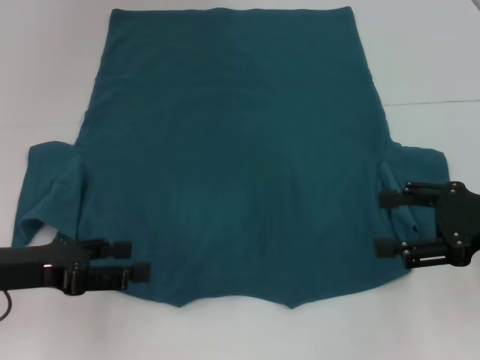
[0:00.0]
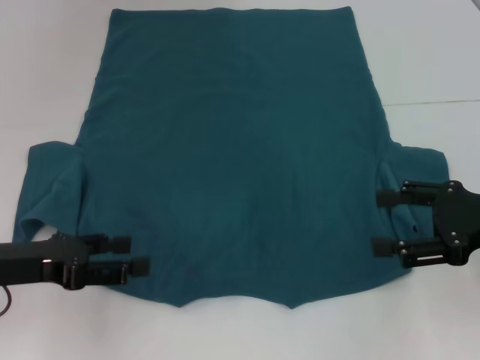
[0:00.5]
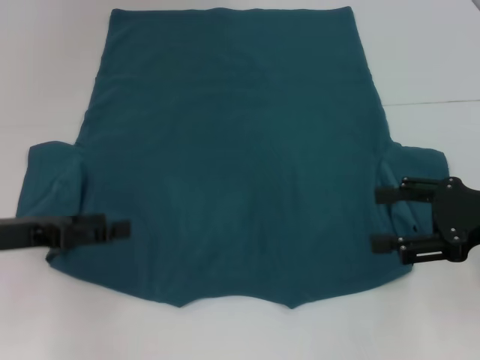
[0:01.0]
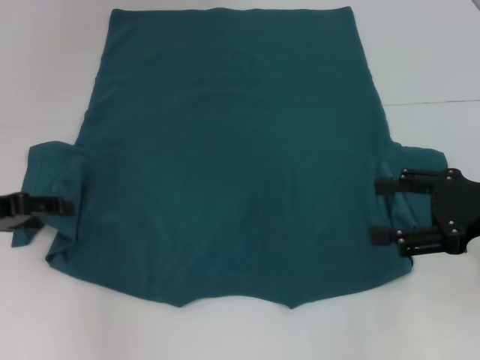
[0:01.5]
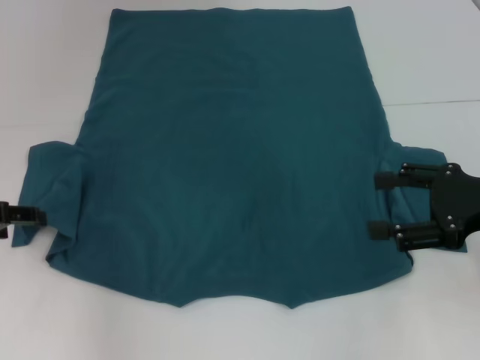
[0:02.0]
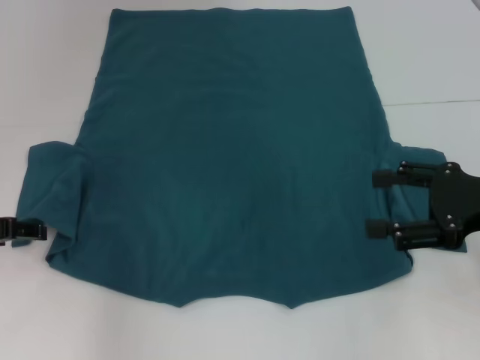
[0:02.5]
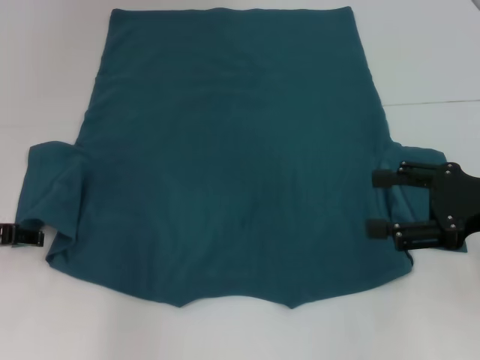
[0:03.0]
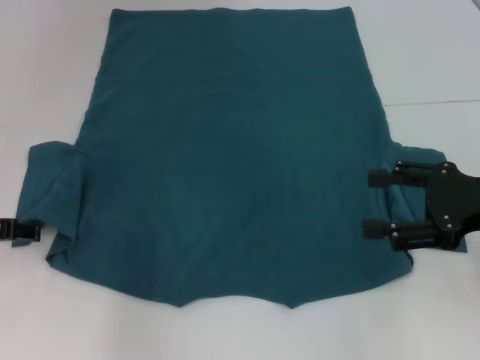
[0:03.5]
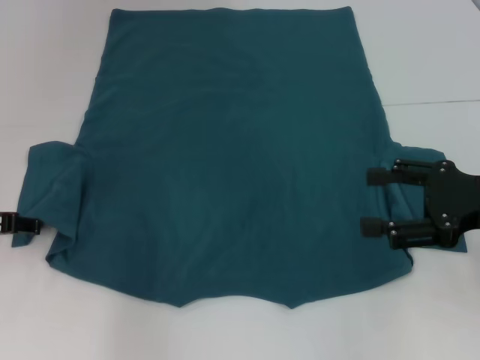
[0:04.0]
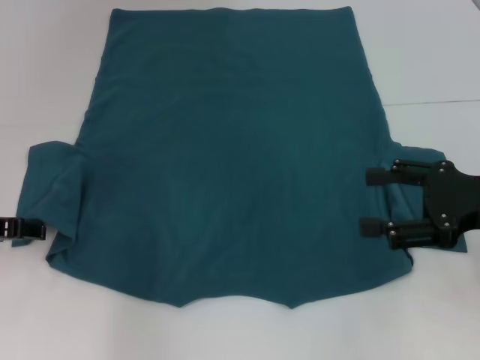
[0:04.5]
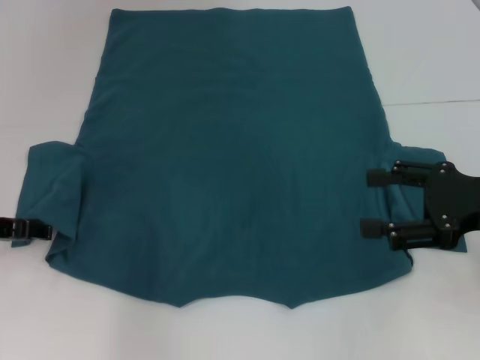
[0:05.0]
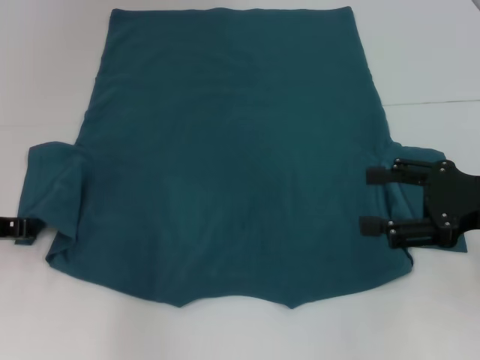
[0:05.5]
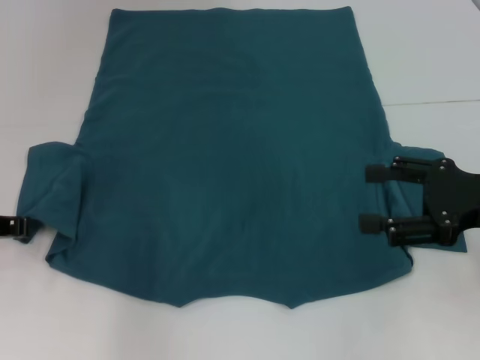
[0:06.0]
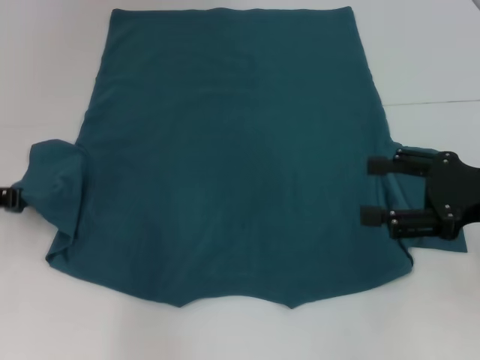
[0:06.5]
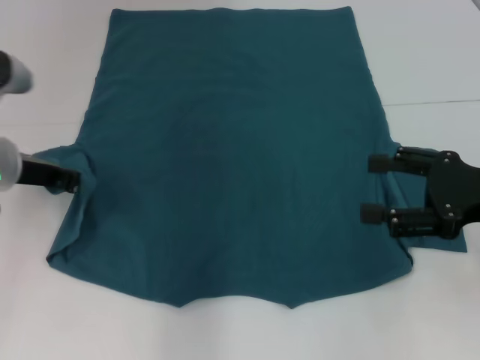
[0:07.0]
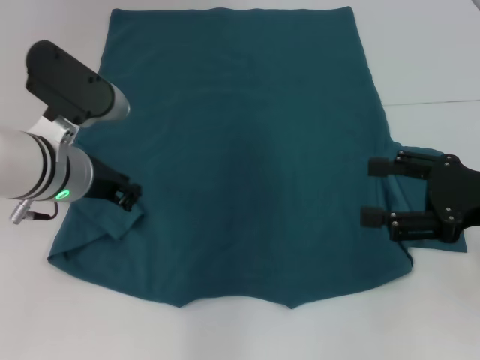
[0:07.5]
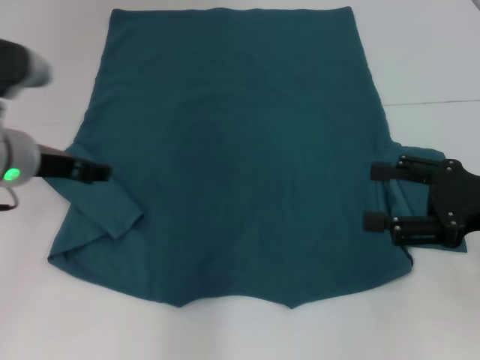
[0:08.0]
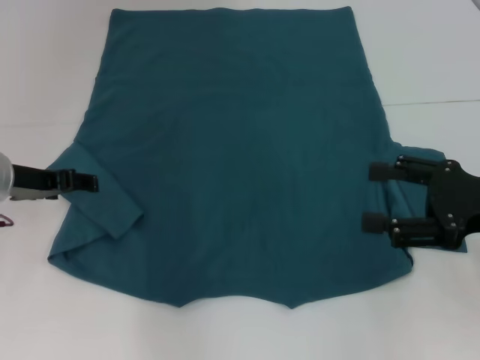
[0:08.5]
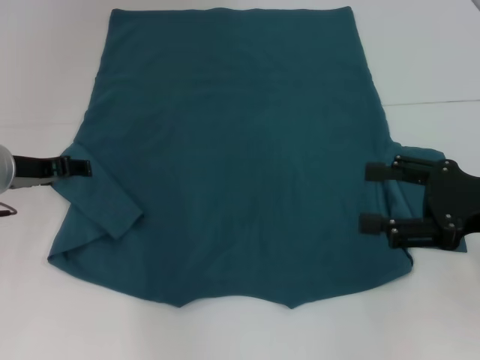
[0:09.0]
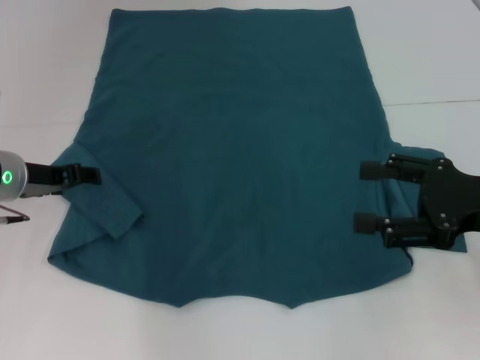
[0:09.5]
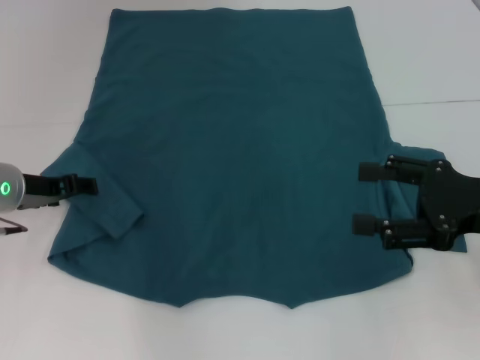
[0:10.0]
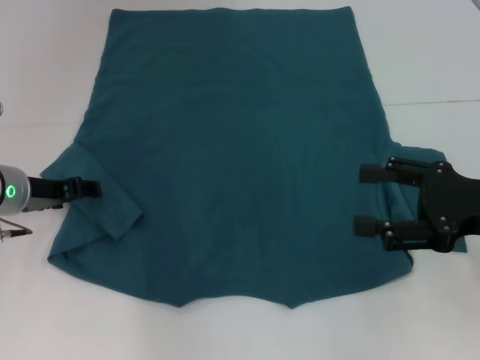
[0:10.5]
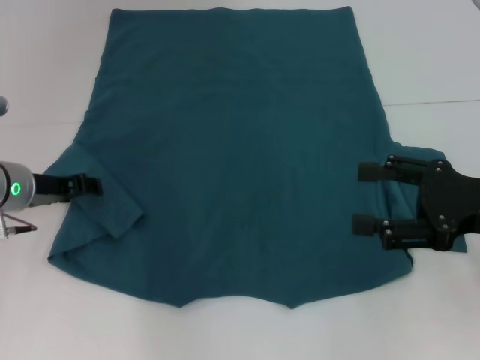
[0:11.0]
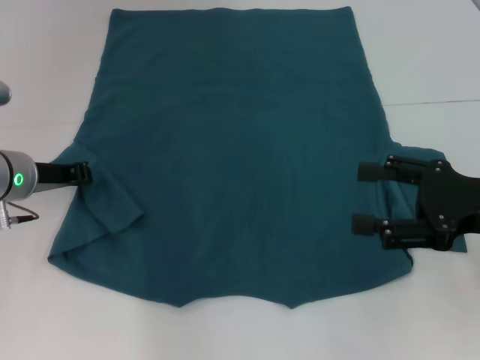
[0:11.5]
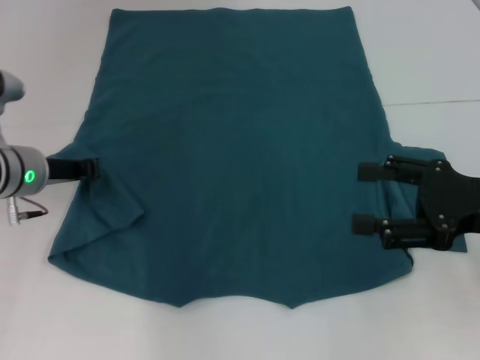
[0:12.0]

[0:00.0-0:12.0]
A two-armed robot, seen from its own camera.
0:00.0 to 0:02.0: The left gripper heads to the left and forward, covering some 5 cm.
0:02.0 to 0:04.0: The grippers stay close to where they were, moving slightly.
0:06.0 to 0:08.0: The left gripper shifts some 10 cm to the right and upward, and opens its fingers.
0:08.0 to 0:10.0: The left gripper heads downward, covering about 5 cm, and opens.
0:10.0 to 0:12.0: The left gripper closes.

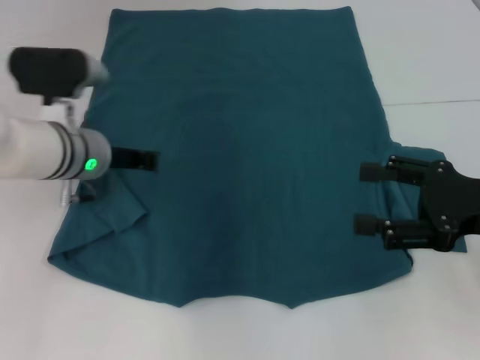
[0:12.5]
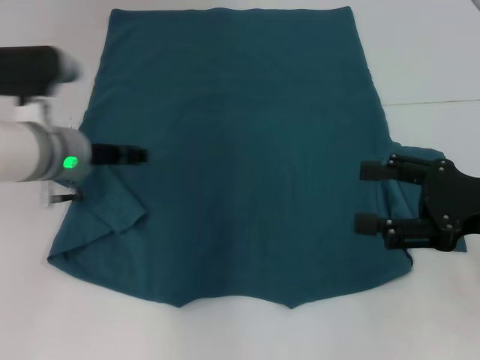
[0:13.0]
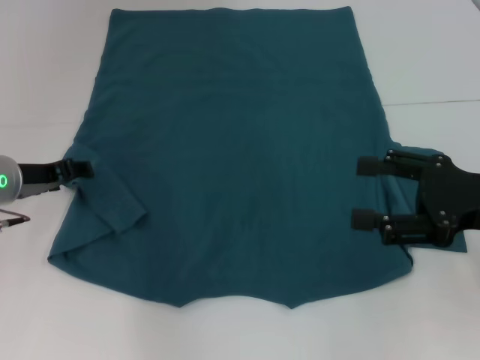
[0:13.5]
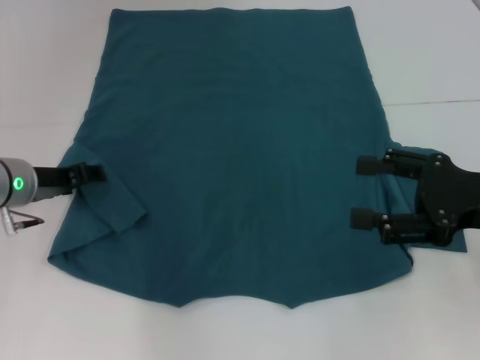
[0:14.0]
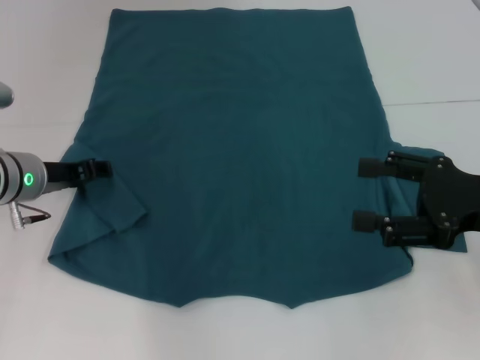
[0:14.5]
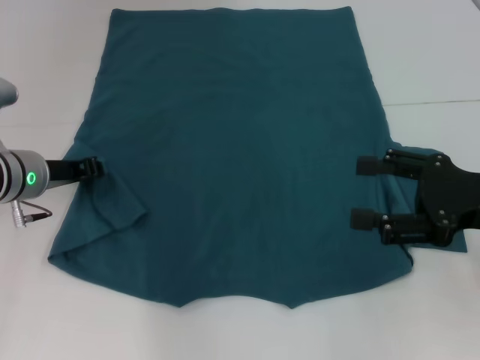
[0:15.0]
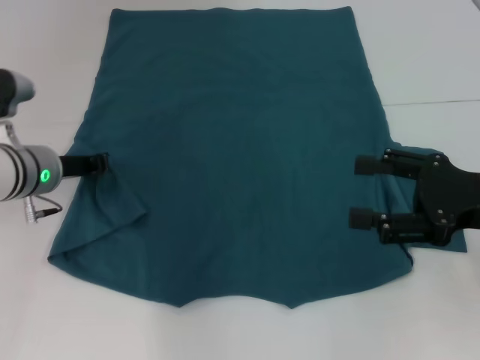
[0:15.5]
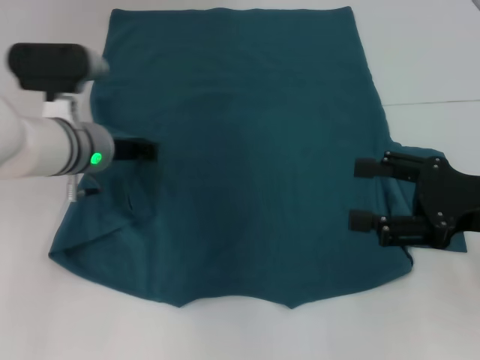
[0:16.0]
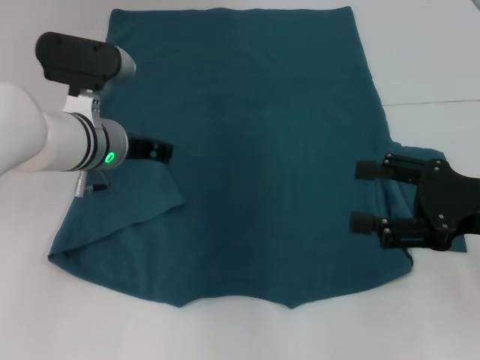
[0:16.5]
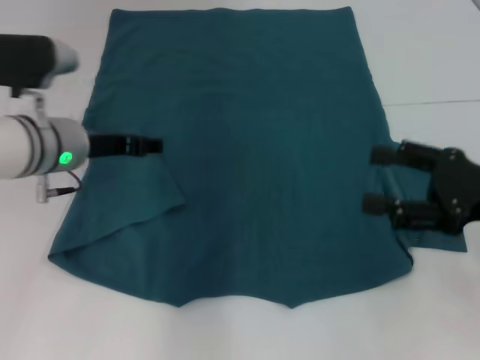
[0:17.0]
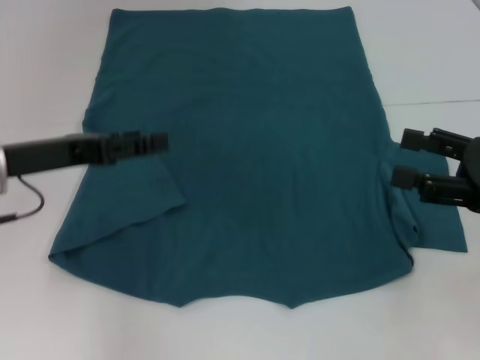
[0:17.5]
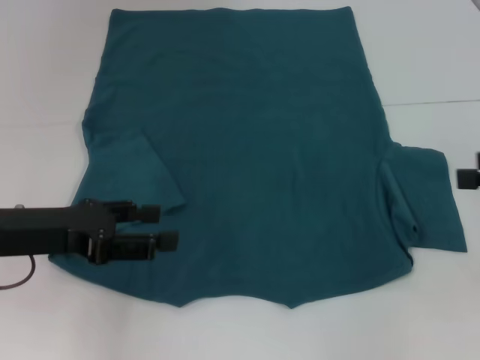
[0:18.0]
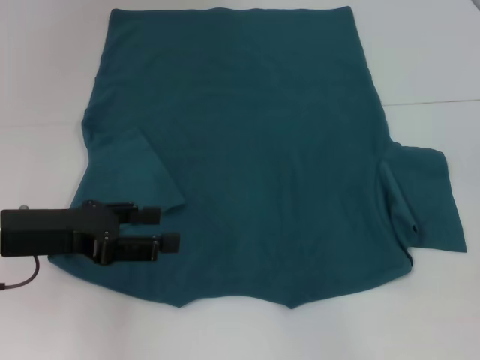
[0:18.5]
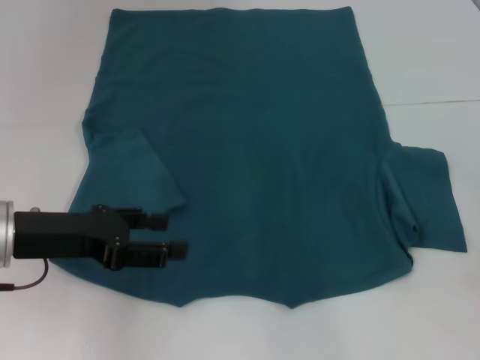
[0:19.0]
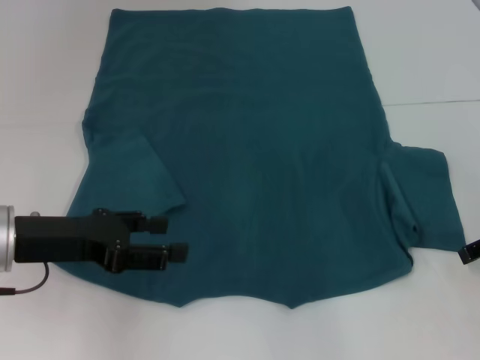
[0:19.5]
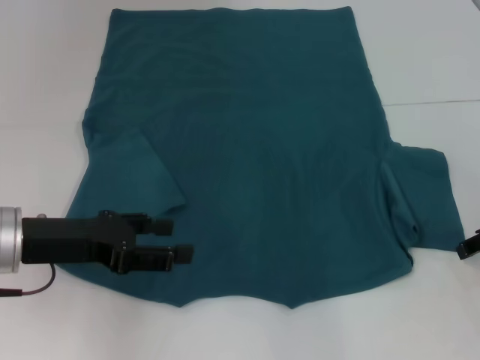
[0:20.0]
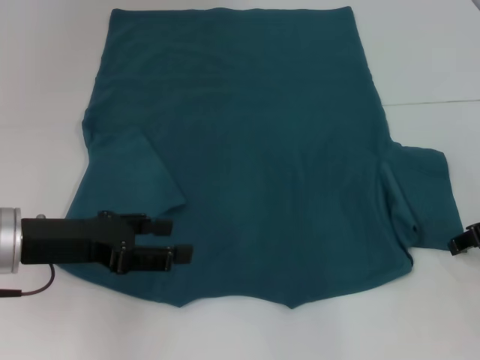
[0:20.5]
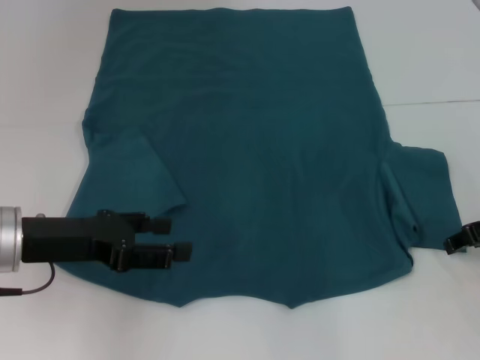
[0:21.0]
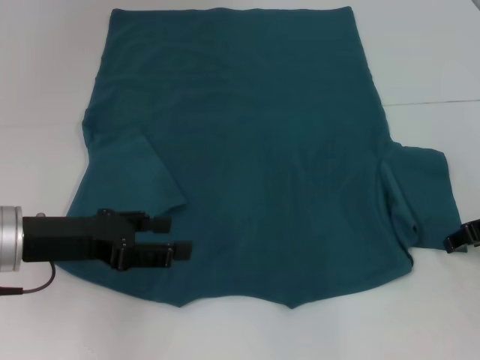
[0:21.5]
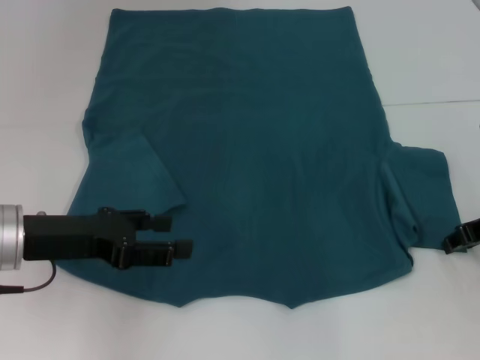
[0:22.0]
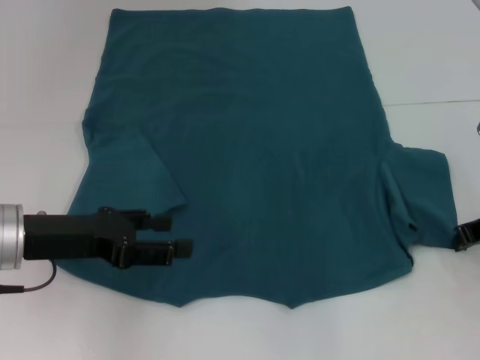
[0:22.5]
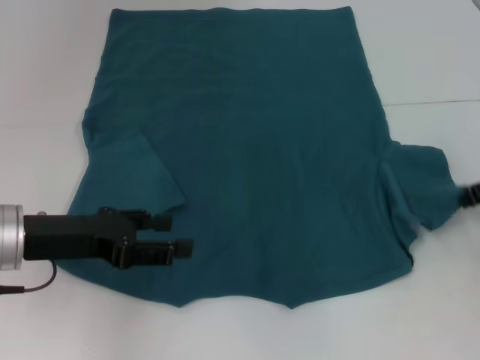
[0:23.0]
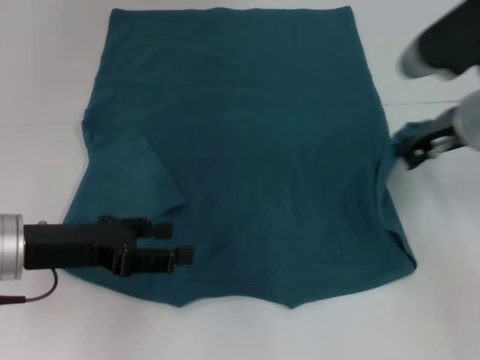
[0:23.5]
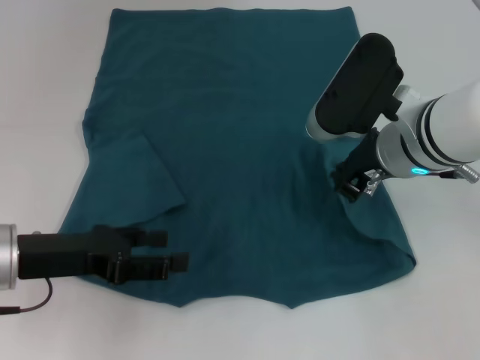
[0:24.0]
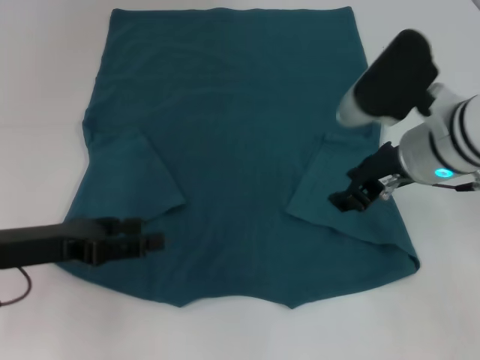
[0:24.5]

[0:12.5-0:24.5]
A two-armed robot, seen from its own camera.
Step, 0:12.5 to 0:16.5: Fold the bottom left sleeve with your left hand.
Step, 0:17.0 to 0:24.0: Fold the bottom right sleeve to the right.
0:12.5 to 0:14.5: The left gripper heads to the left, covering some 5 cm, and opens.
0:14.5 to 0:16.5: The left gripper moves to the right, roughly 10 cm, and closes.
0:16.5 to 0:18.5: The left gripper heads backward and to the left, covering roughly 15 cm, and opens up, while the right gripper shifts some 10 cm to the right and upward.
0:18.5 to 0:20.5: The right gripper is displaced downward, forward and to the left by approximately 10 cm, and closes its fingers.
0:22.5 to 0:24.5: The right gripper moves to the left and upward, roughly 15 cm.

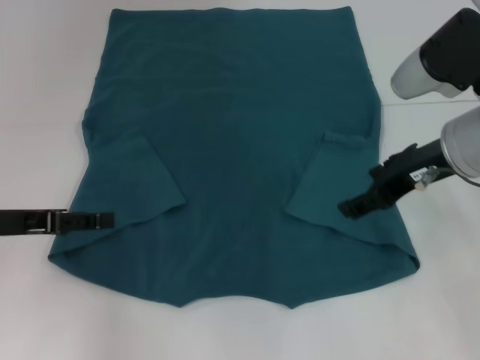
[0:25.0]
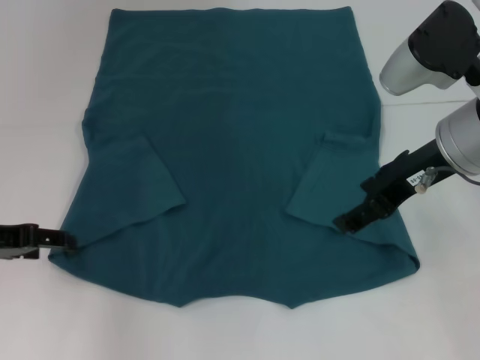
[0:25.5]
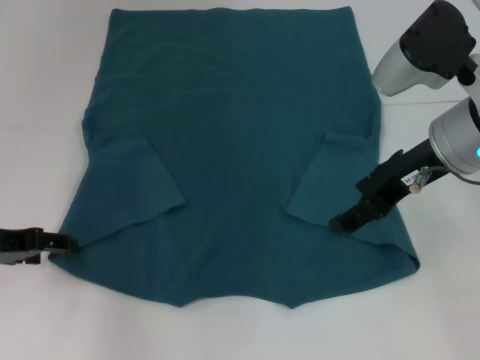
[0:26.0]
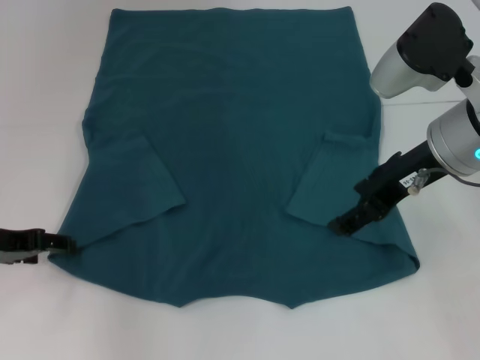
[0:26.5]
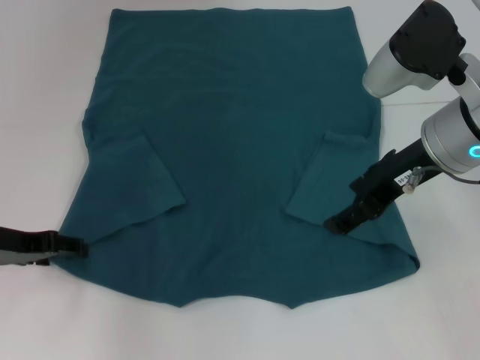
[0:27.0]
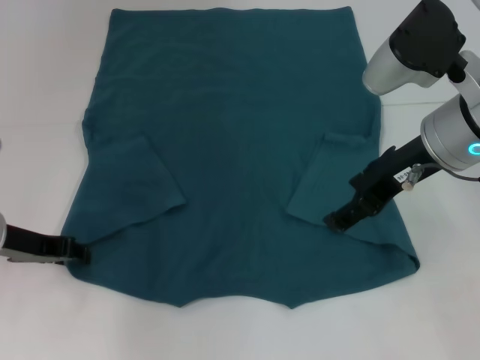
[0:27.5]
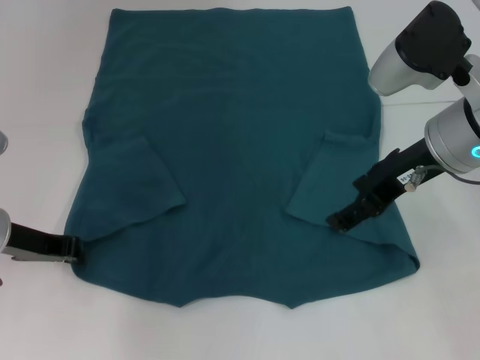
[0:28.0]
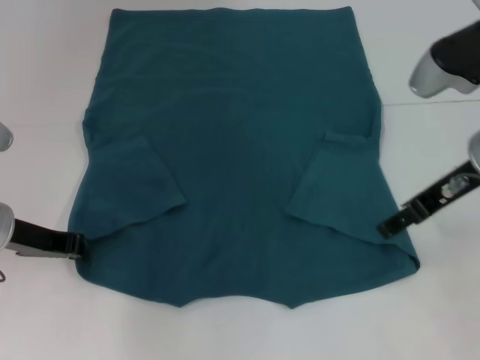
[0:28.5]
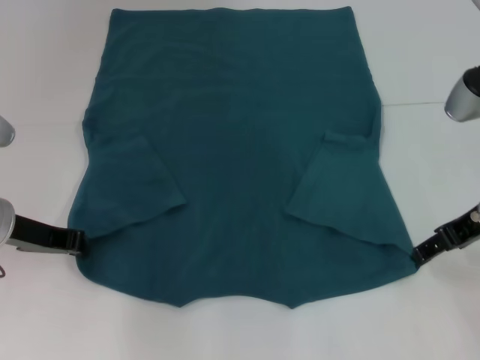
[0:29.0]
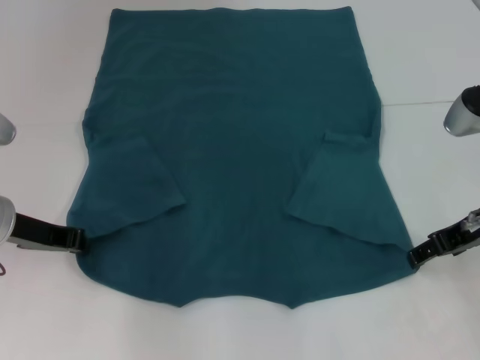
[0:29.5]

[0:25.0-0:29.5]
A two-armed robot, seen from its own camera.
Step, 0:25.0 to 0:27.5: Grab the bottom left corner with your left hand.
0:27.0 to 0:29.5: The left gripper closes up. The right gripper heads to the right and downward, covering about 10 cm.
